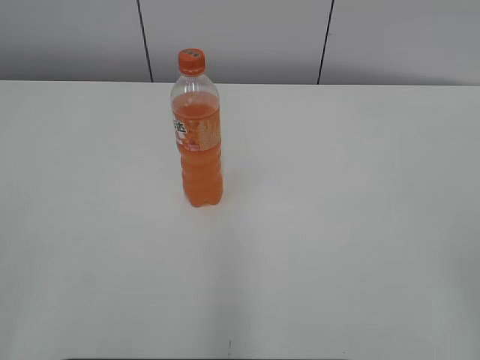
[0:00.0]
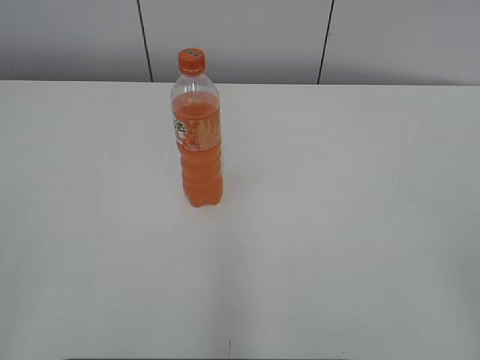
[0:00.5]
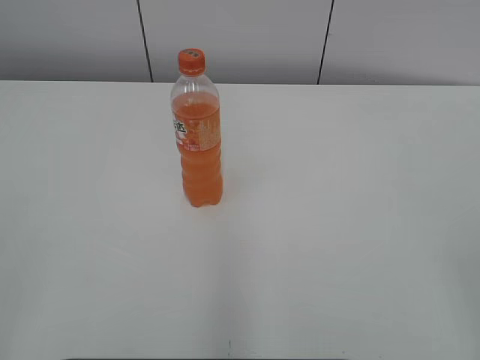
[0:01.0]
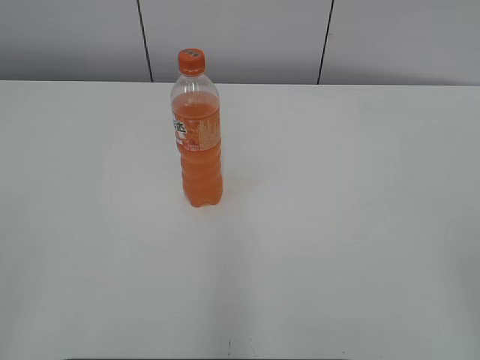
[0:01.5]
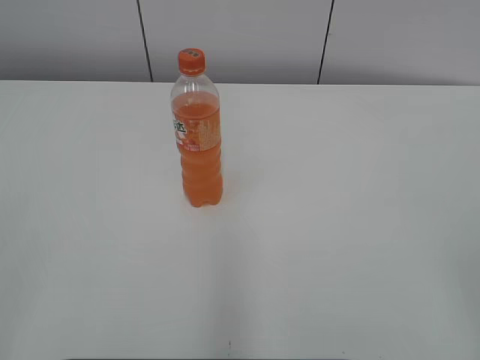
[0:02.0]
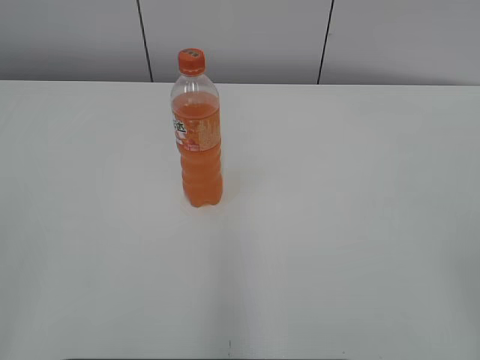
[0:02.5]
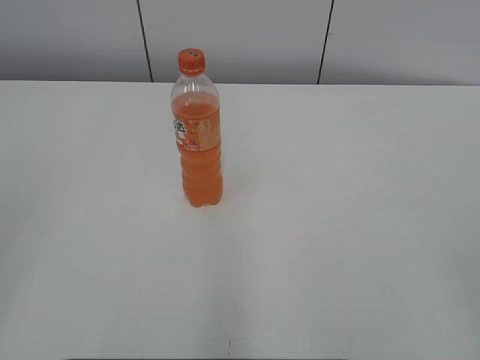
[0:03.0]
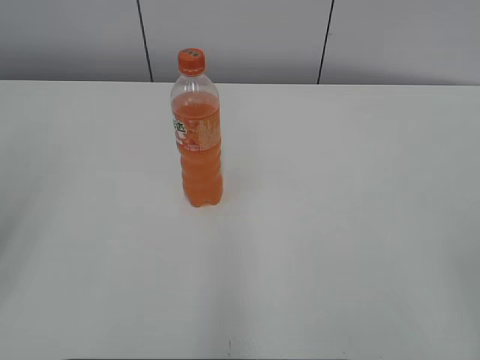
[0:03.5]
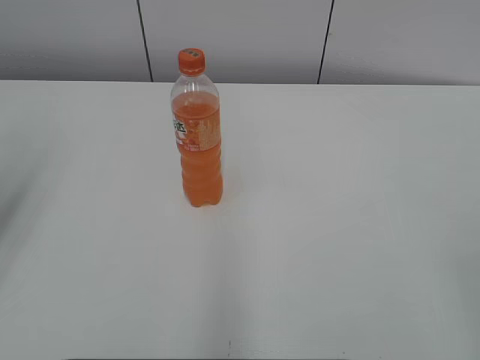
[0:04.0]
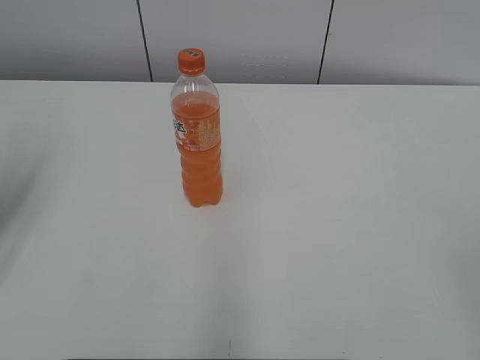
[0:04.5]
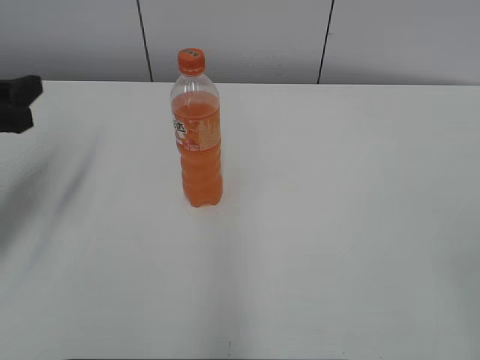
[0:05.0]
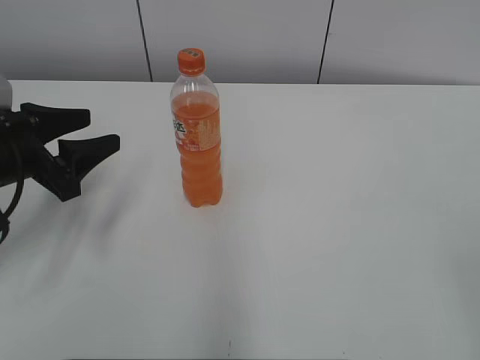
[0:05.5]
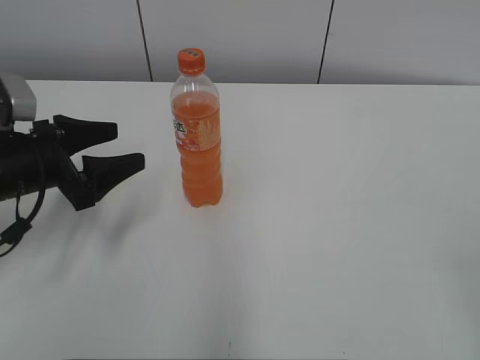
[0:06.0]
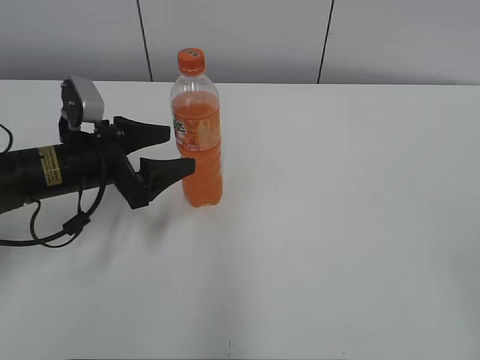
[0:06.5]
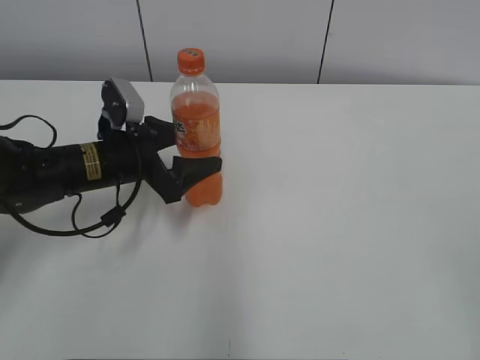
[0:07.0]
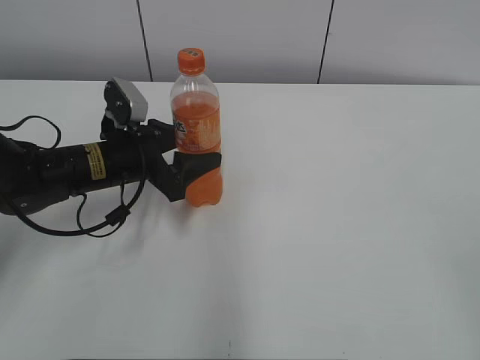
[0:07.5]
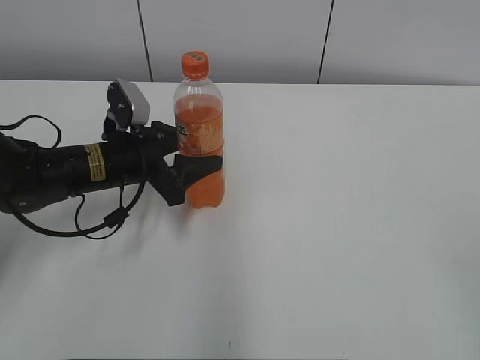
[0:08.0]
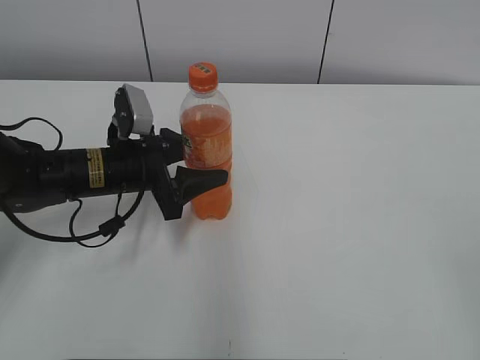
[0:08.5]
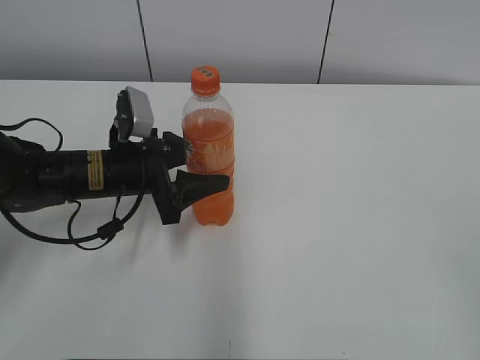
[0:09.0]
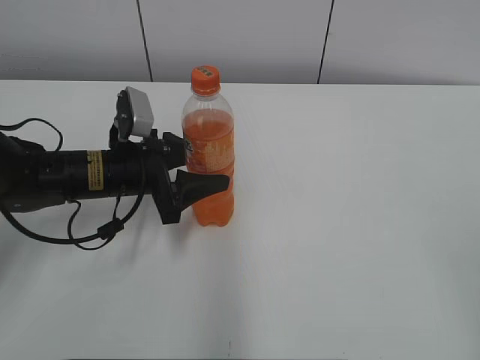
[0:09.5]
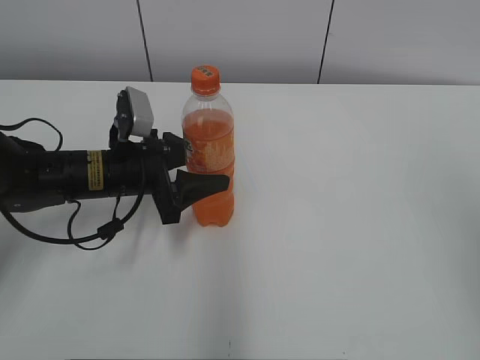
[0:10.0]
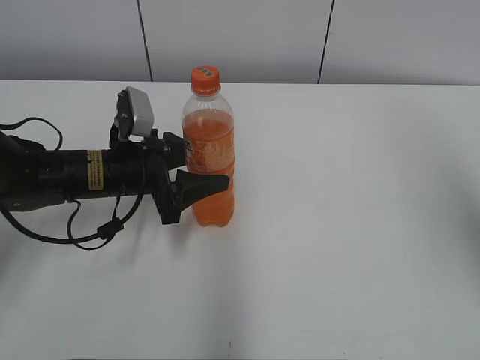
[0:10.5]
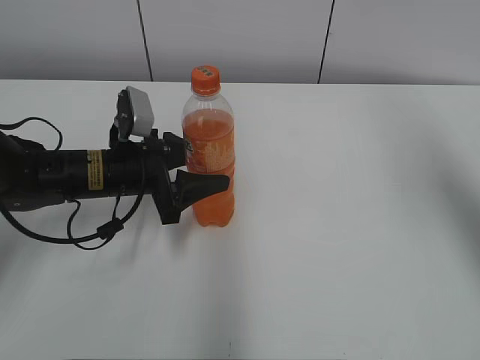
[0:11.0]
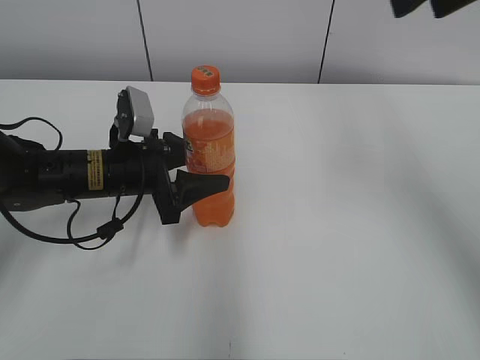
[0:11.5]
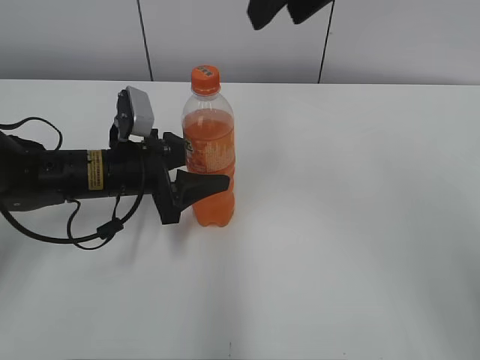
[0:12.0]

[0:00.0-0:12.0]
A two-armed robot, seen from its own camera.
Step, 0:00.0 to 0:07.5: Grab the Mirinda with the left hand.
Step, 0:08.0 to 0:09.5: Move the Mirinda from left to right.
0:04.0 to 0:06.0: The left gripper travels downward, forward and to the right by about 20 cm, and opens up.
0:06.0 to 0:08.0: The left gripper is displaced to the right by about 10 cm, and closes up.
0:08.0 to 0:10.0: The right gripper moves forward and upward, about 10 cm, and closes its fingers.
0:10.0 to 0:12.0: The right gripper moves forward and to the left, some 30 cm.

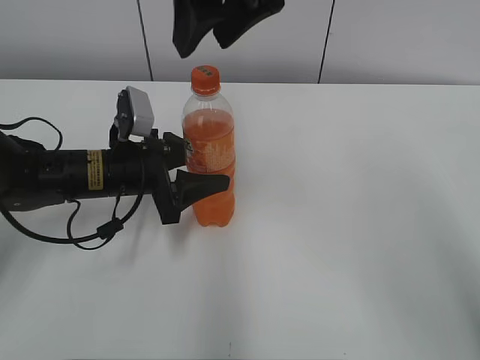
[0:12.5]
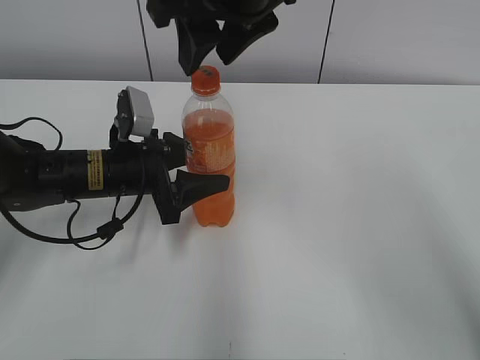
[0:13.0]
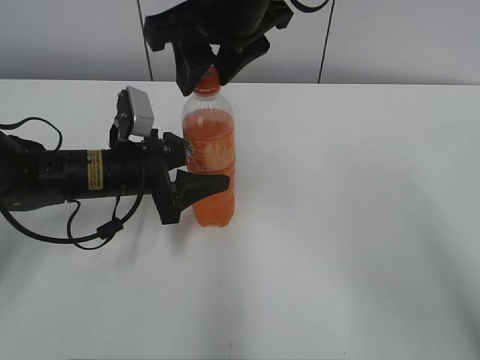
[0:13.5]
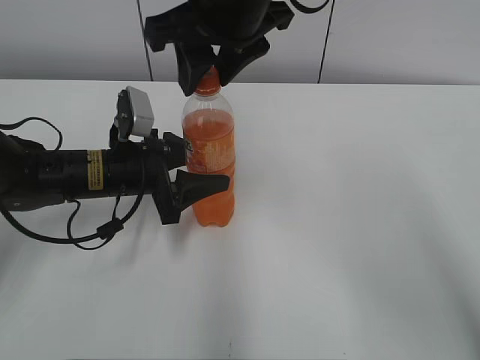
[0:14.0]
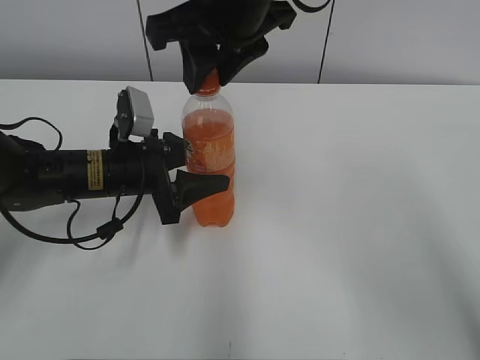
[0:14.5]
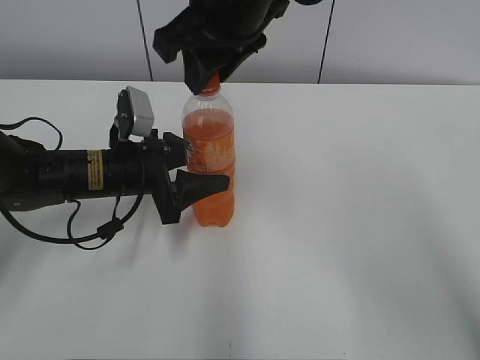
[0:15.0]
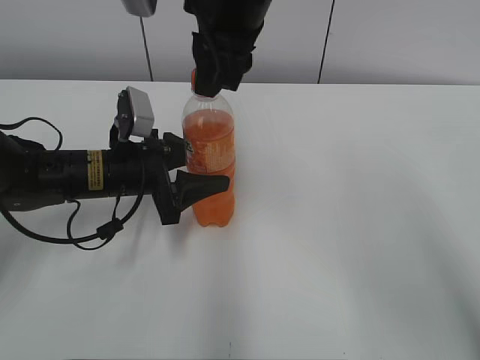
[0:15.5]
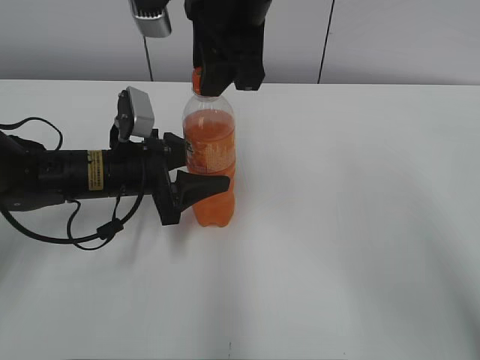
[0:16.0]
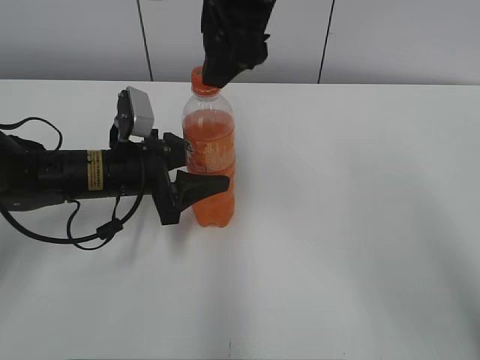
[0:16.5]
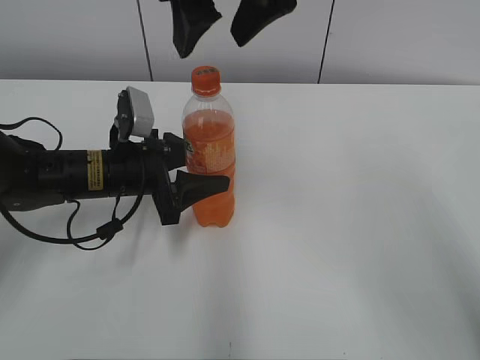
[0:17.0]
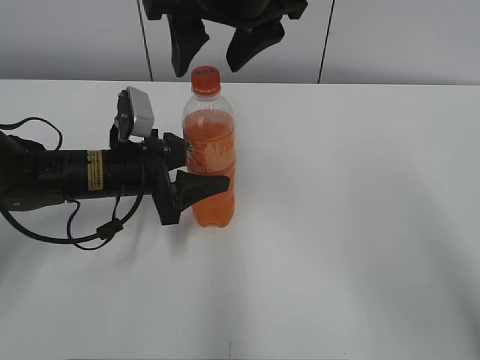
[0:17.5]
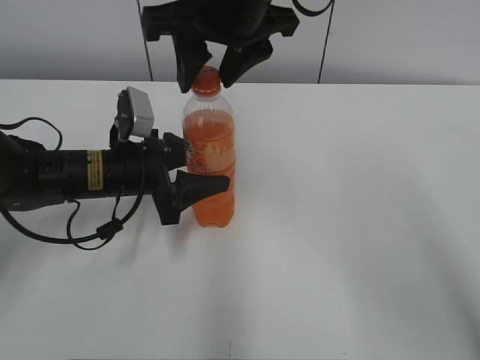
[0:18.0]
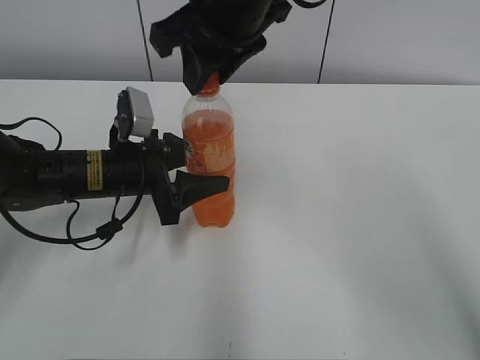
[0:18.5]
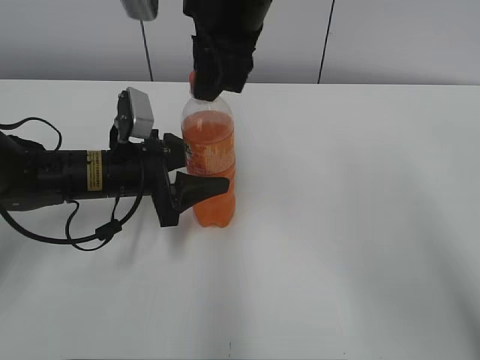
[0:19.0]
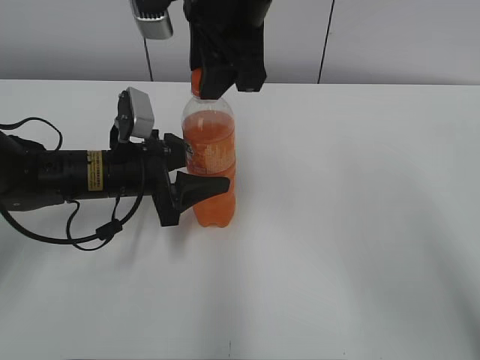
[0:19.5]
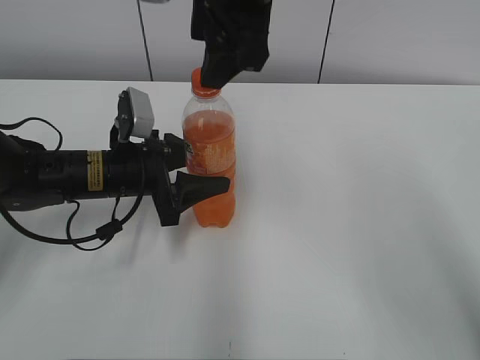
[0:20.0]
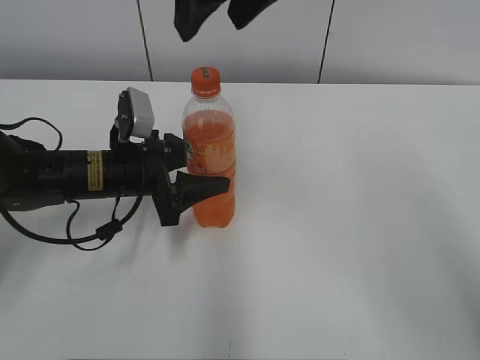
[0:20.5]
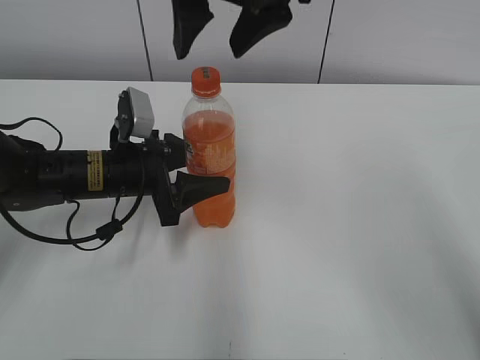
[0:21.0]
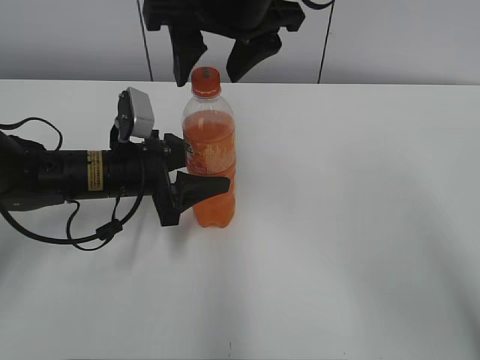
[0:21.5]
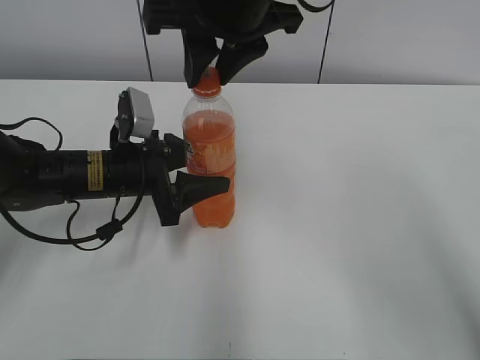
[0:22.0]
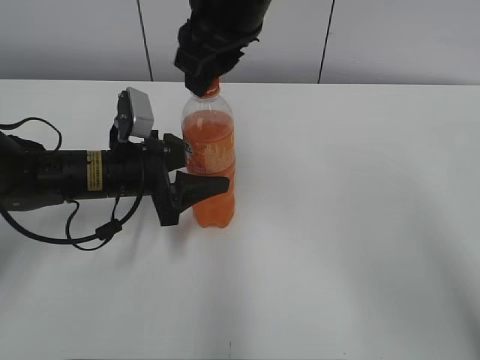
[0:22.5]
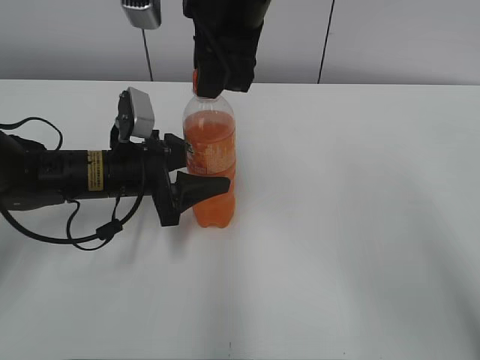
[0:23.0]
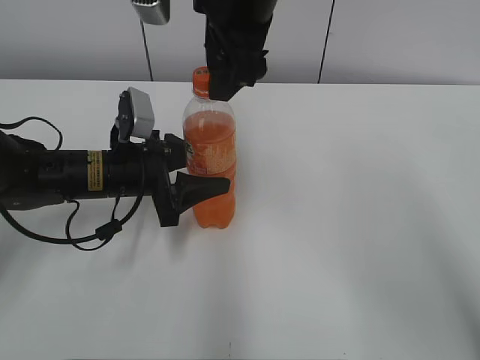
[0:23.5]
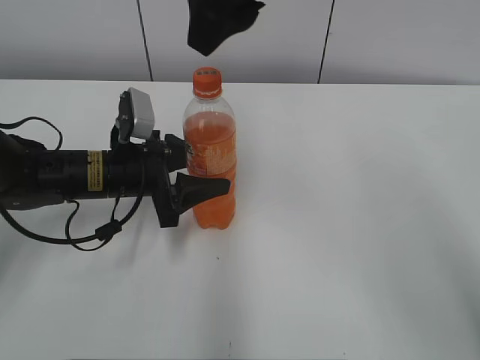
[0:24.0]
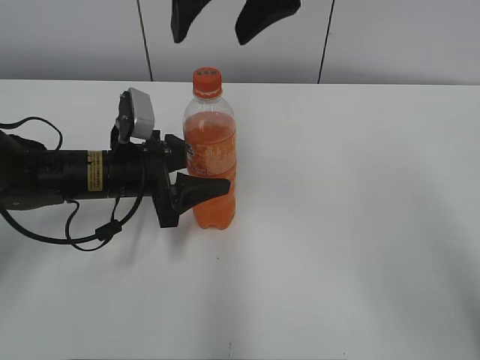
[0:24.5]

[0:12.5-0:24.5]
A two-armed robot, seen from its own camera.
0:12.5 to 0:14.5: The right gripper changes place by approximately 5 cm.
0:14.5 to 0:16.5: The right gripper opens.
0:16.5 to 0:18.5: The right gripper closes its fingers.
0:18.5 to 0:20.5: The right gripper travels upward by some 5 cm, and opens up.
0:20.5 to 0:22.5: The right gripper heads downward, covering approximately 5 cm, and closes up.
0:22.5 to 0:24.5: The right gripper shifts by about 5 cm, and opens its fingers.

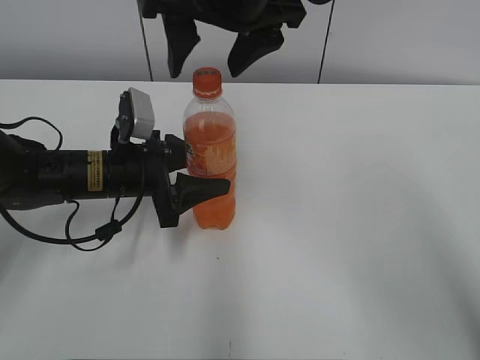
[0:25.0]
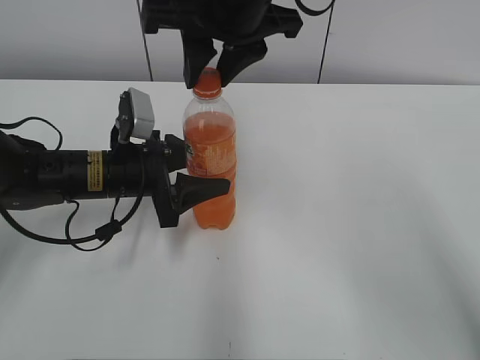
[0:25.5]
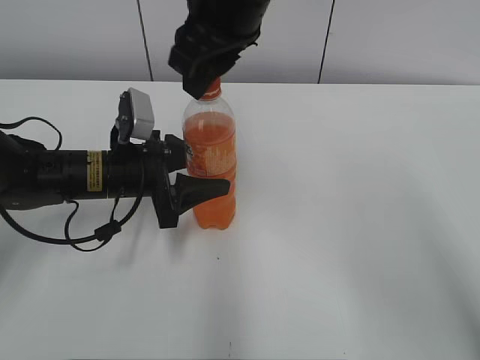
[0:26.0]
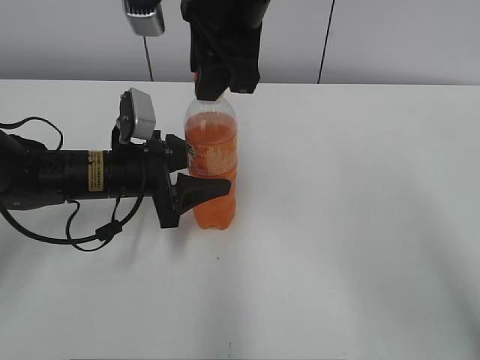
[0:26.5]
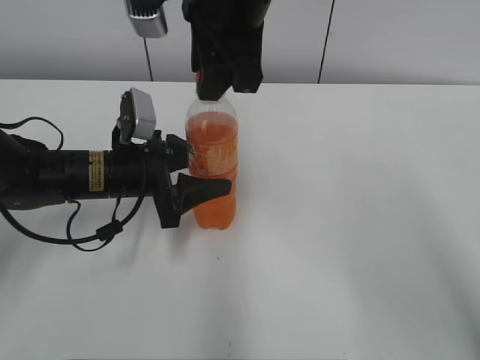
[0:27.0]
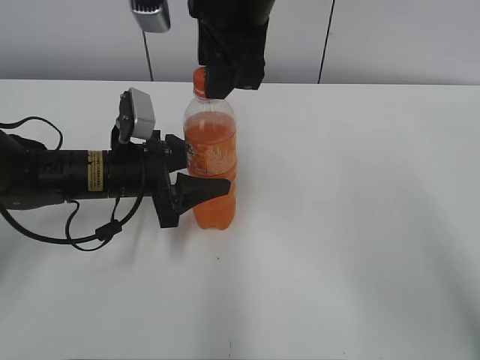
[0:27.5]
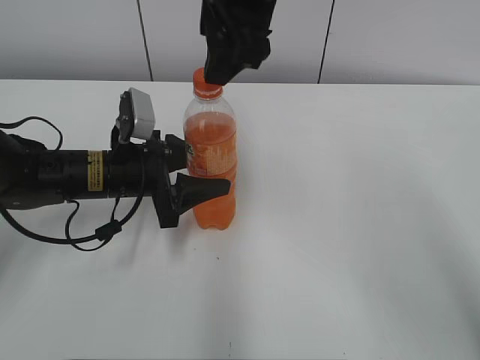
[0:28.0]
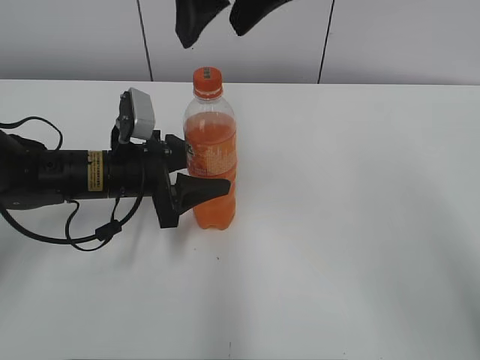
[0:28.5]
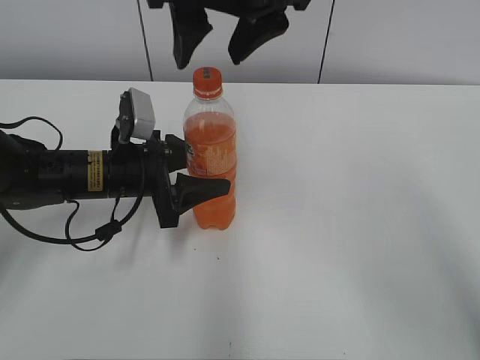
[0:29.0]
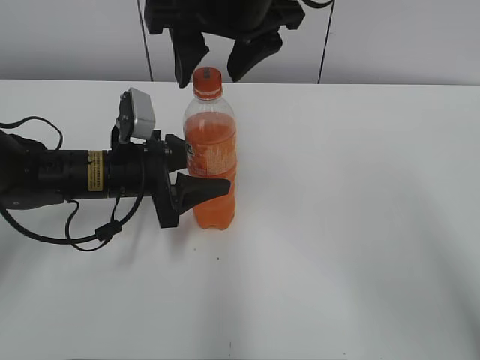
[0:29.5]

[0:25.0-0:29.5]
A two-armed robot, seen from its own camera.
0:25.0 to 0:27.0: The right gripper closes its fingers.
0:27.0 to 0:29.5: The right gripper opens.
